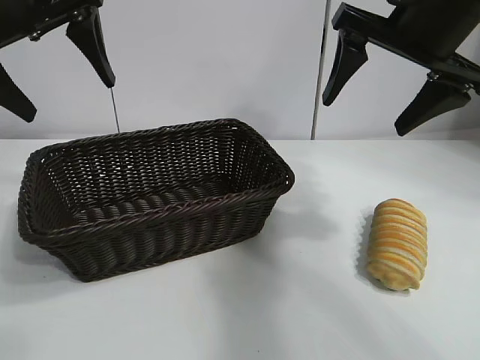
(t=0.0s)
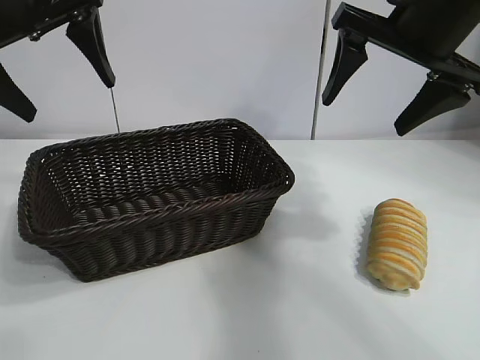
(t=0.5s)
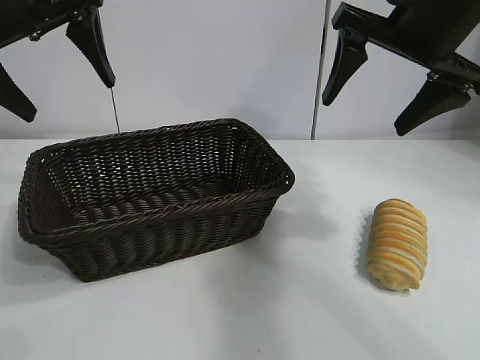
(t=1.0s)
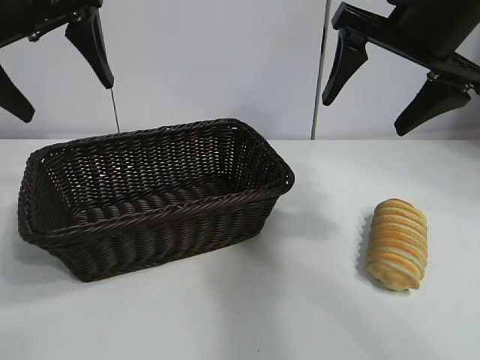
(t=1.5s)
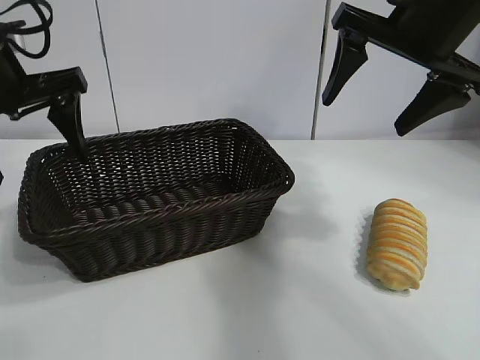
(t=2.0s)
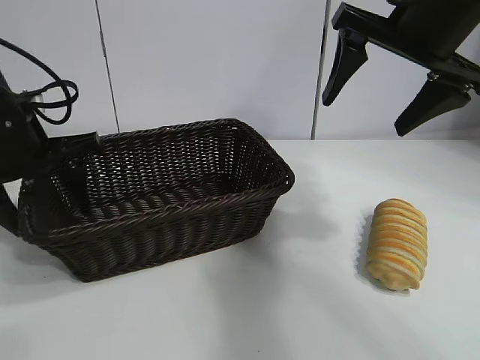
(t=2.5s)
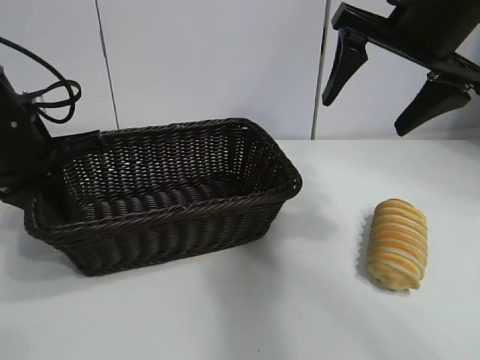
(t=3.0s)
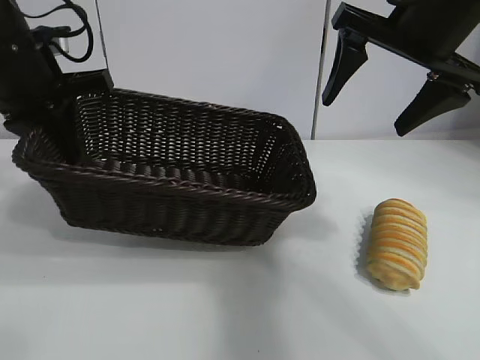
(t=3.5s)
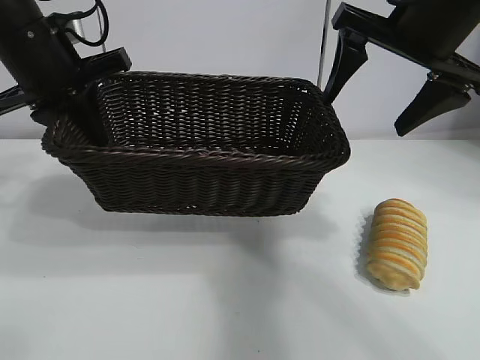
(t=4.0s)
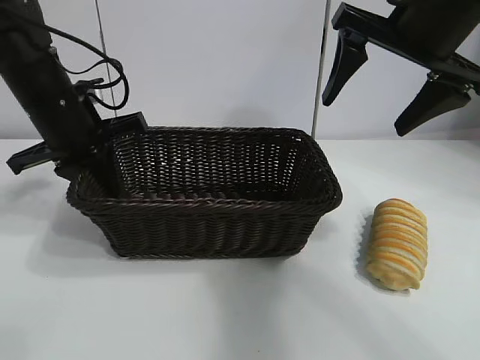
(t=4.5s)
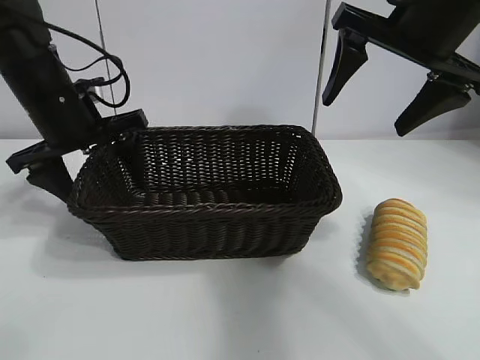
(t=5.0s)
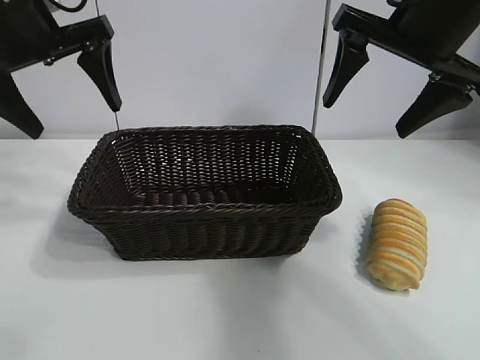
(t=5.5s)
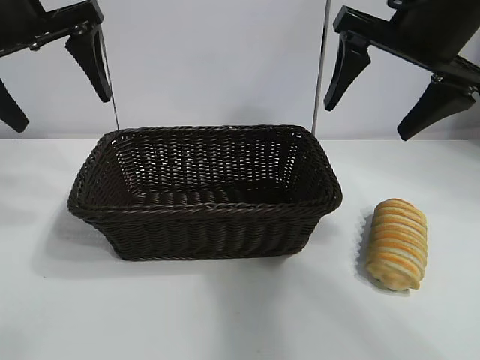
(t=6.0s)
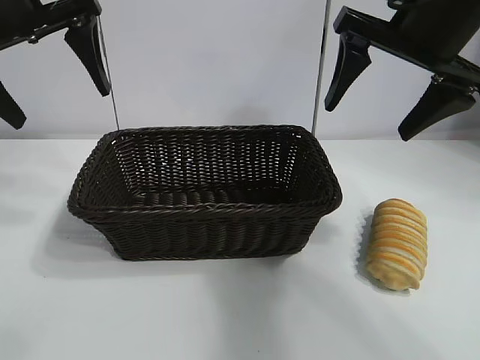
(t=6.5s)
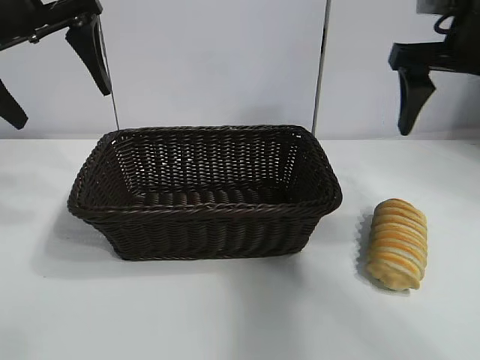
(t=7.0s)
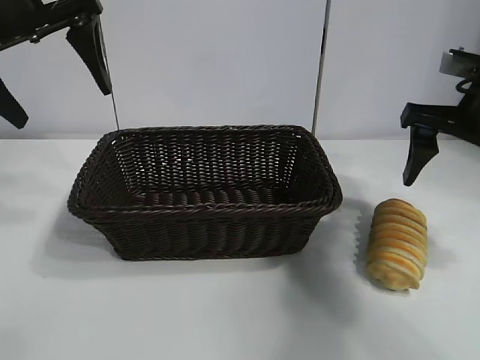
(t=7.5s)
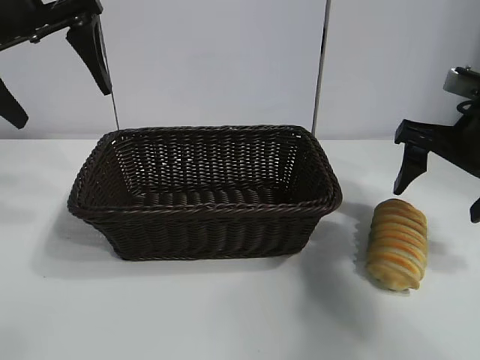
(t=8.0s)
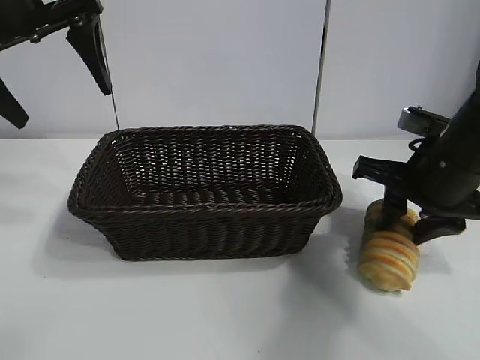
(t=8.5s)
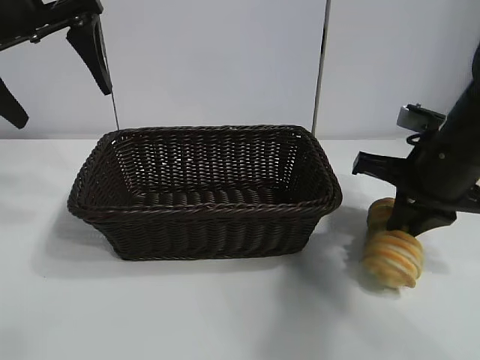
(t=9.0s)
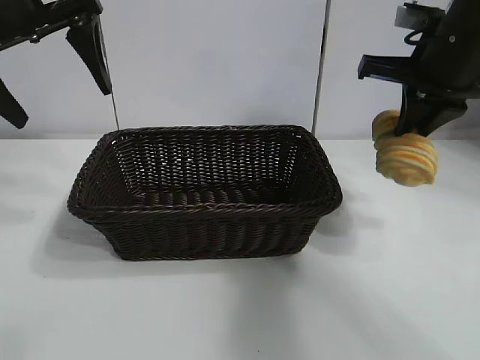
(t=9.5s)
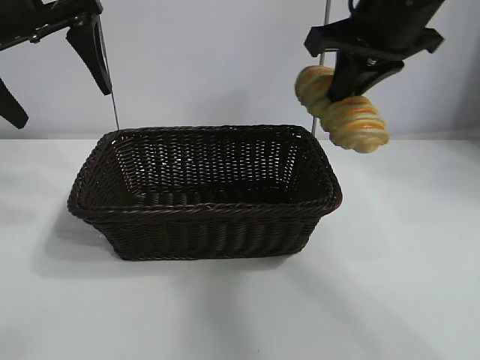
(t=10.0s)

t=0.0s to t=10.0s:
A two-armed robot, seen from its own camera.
Task of the whole recording: pick up the long bread and put it into the basket.
Step, t=1.0s to t=2.5s: Grasp the basket with the left gripper.
Step, t=3.0s to t=4.5s: Place the basket in the center of the table with the left gripper.
Step, t=5.5s to t=8.5s: Grasp the long bread with right gripper.
